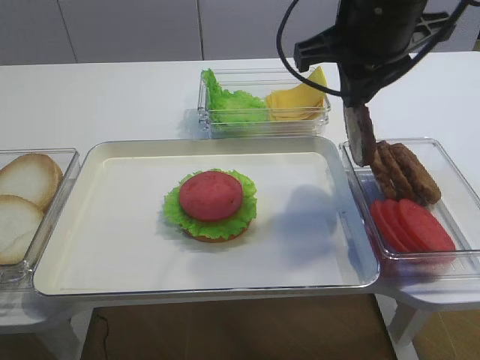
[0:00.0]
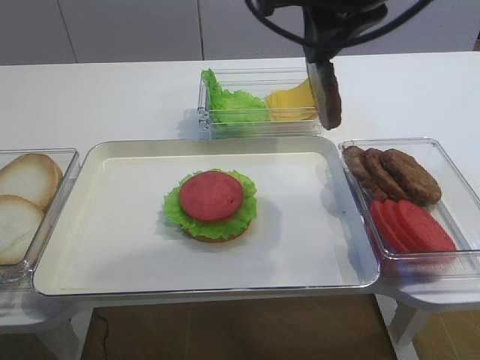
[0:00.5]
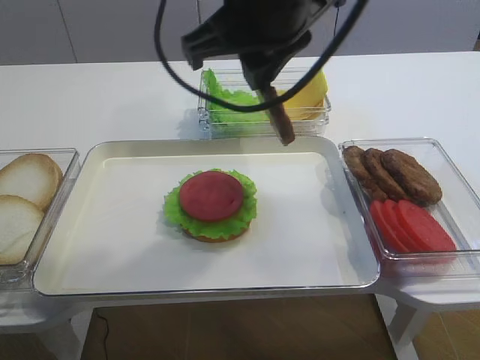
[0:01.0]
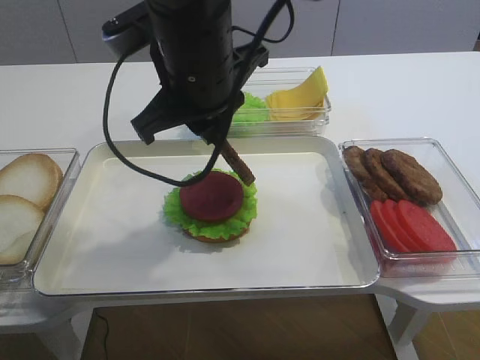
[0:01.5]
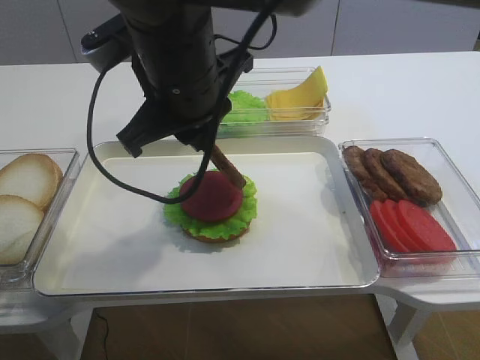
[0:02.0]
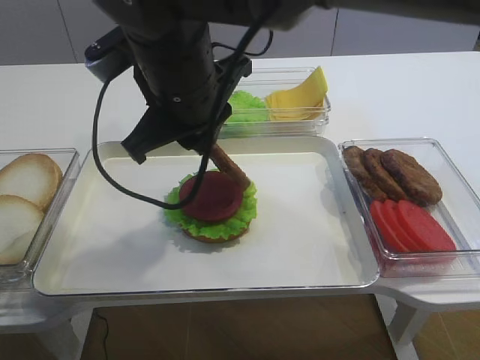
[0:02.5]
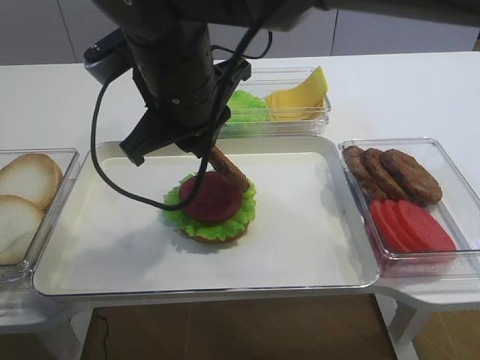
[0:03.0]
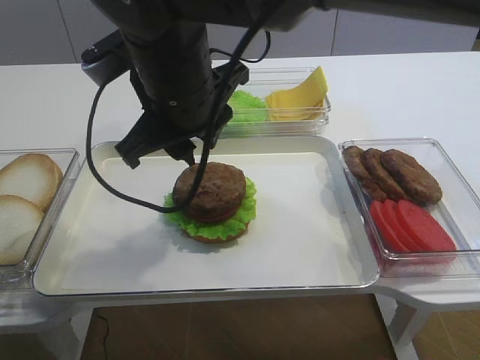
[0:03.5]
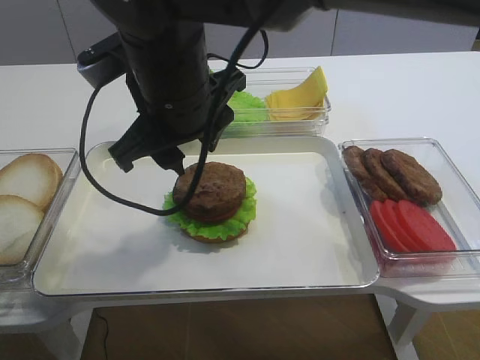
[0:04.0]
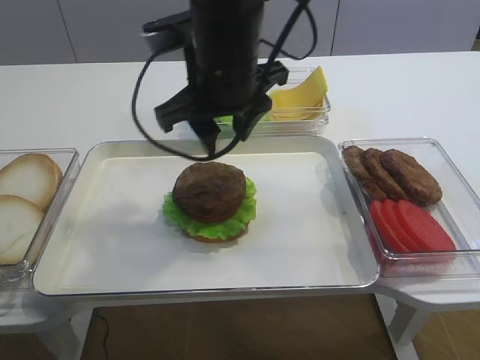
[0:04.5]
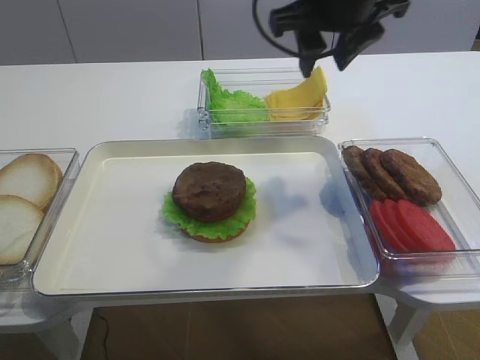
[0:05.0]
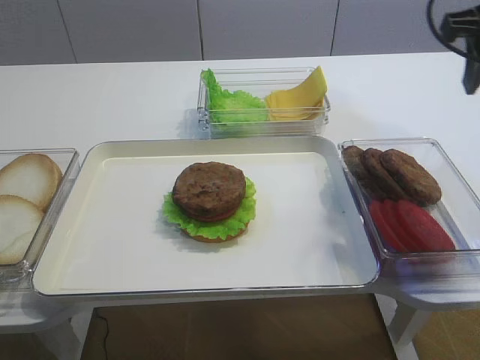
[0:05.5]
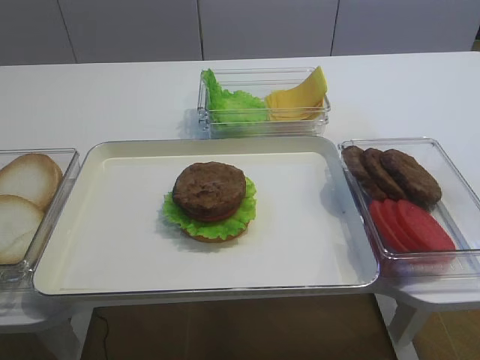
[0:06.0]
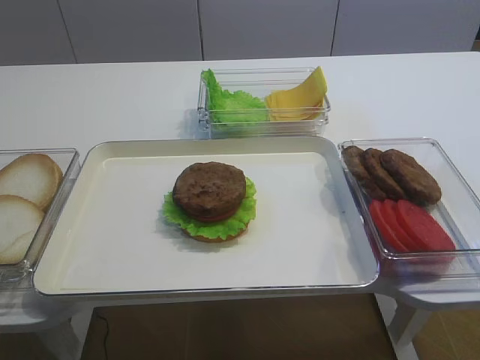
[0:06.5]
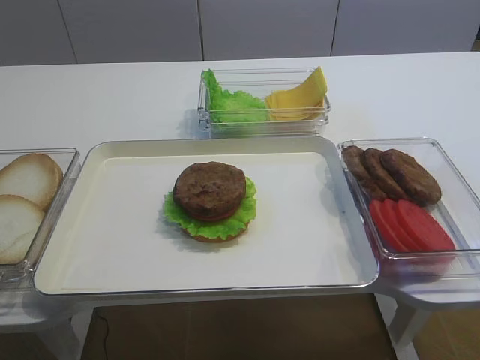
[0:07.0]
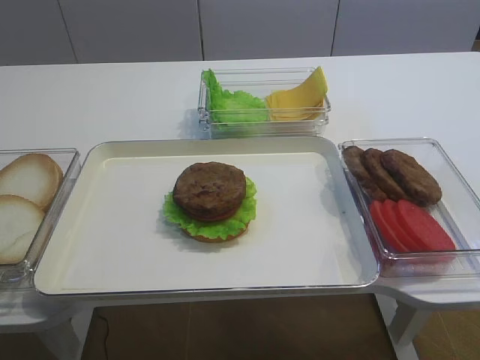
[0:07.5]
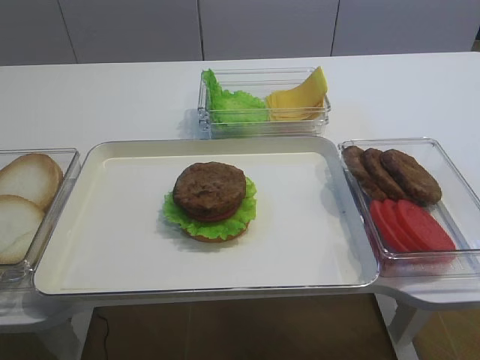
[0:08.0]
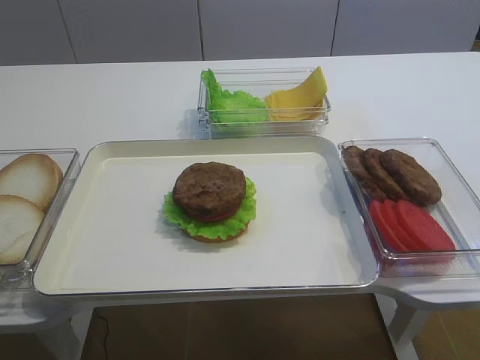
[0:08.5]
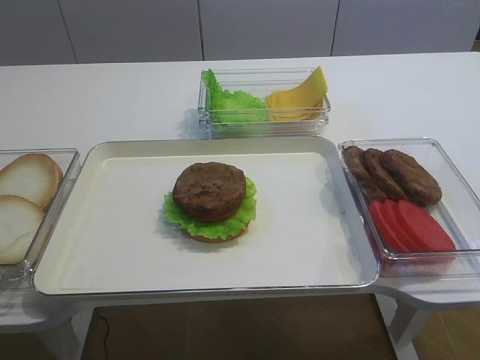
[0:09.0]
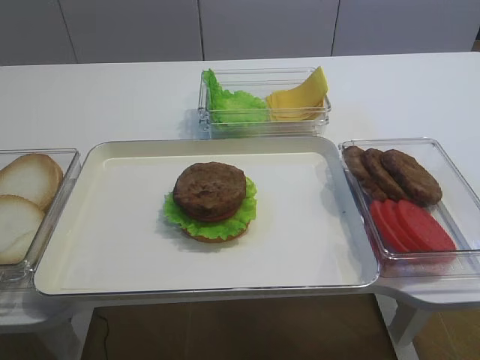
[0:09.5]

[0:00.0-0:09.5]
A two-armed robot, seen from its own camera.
Step, 0:00.5 to 0:03.0: Place the cutlet on the tomato slice with the right gripper.
0:00.0 to 0:02.0: The right gripper is displaced to the left by about 15 cm.
0:02.0 to 0:04.0: The right gripper opens its fingers.
0:04.0 to 0:05.5: The right gripper is displaced to the right by about 30 cm.
0:05.5 to 0:07.5: The right gripper moves backward, some 30 cm.

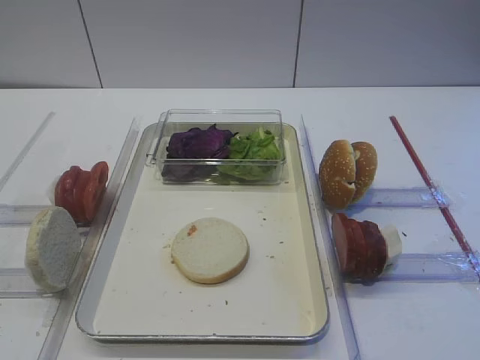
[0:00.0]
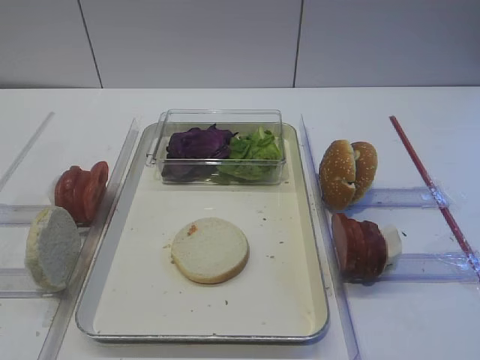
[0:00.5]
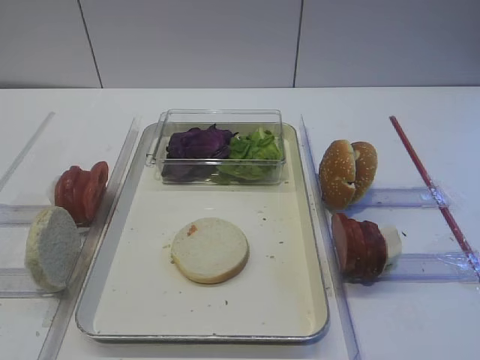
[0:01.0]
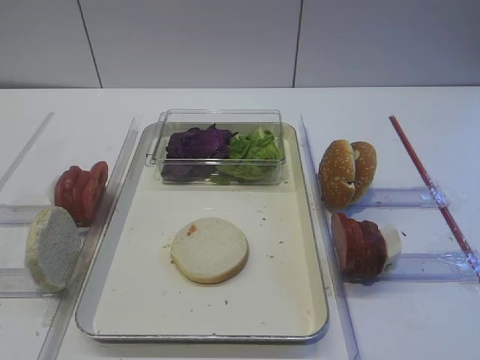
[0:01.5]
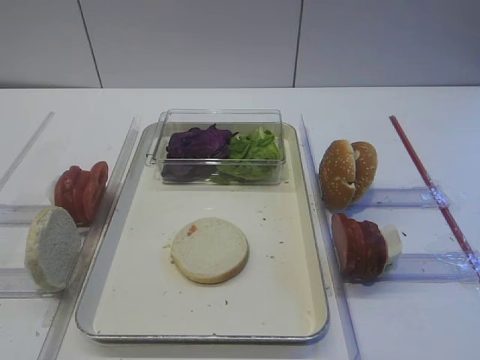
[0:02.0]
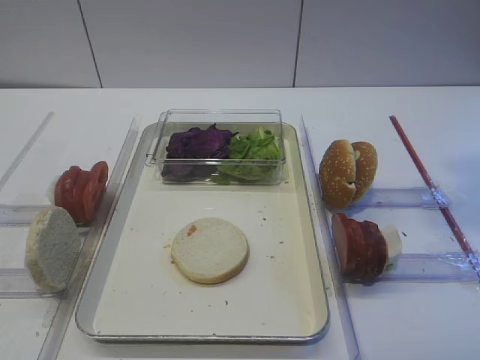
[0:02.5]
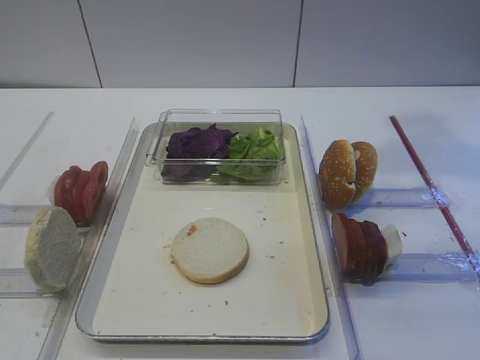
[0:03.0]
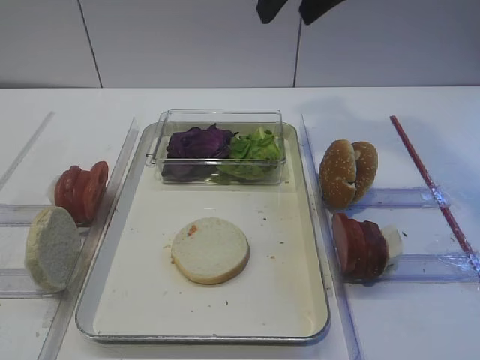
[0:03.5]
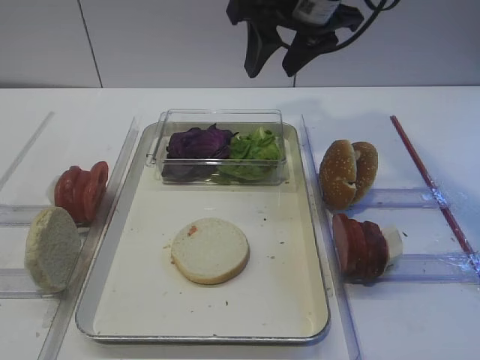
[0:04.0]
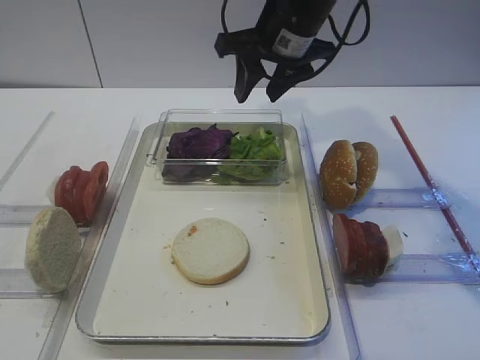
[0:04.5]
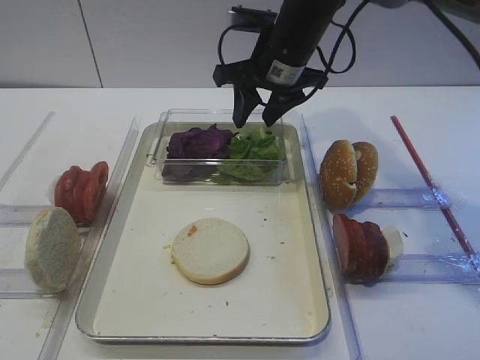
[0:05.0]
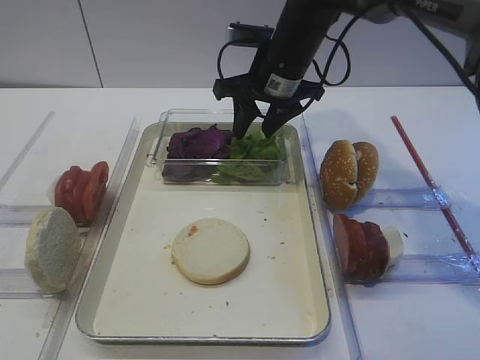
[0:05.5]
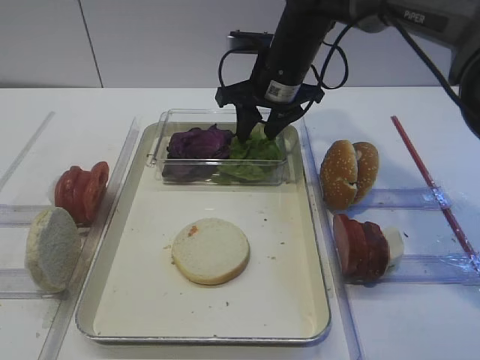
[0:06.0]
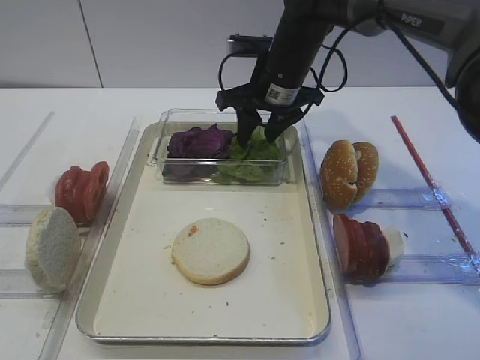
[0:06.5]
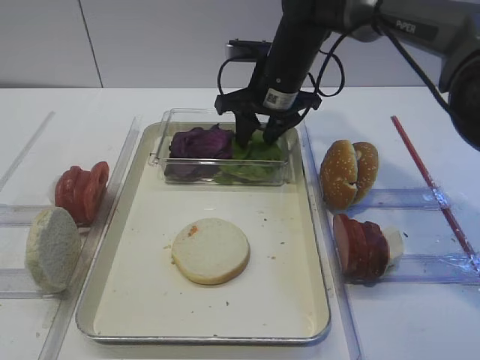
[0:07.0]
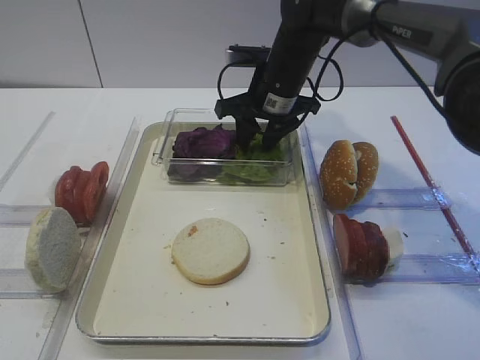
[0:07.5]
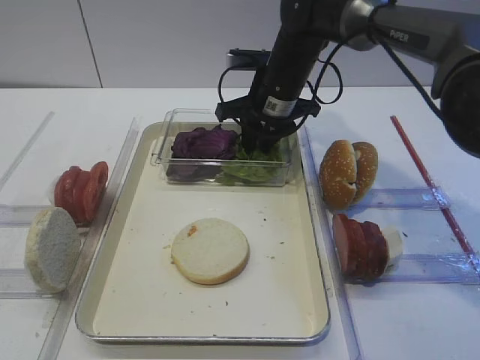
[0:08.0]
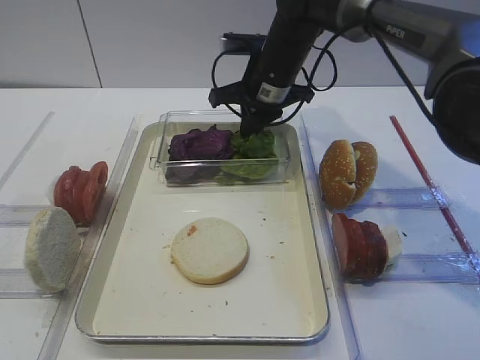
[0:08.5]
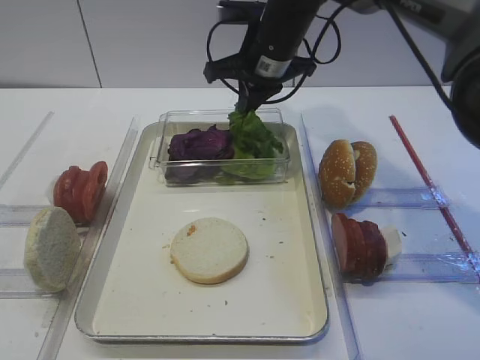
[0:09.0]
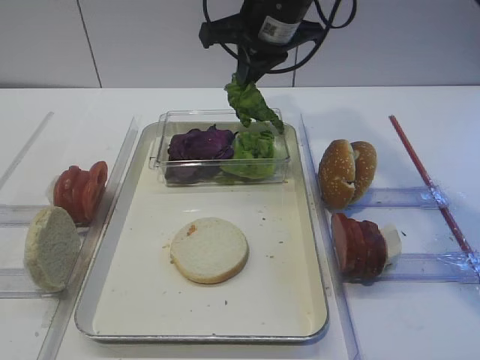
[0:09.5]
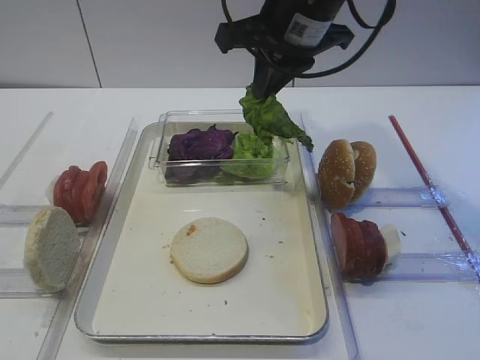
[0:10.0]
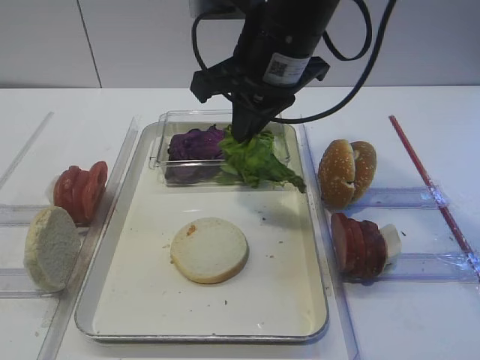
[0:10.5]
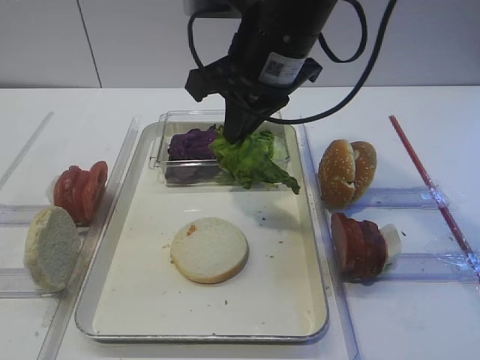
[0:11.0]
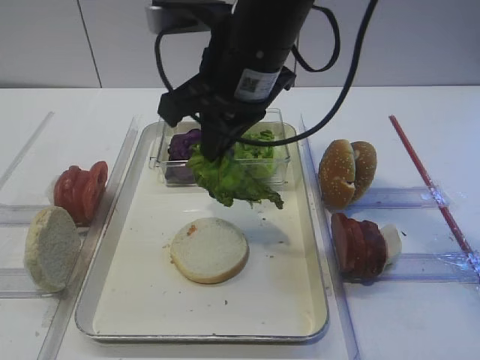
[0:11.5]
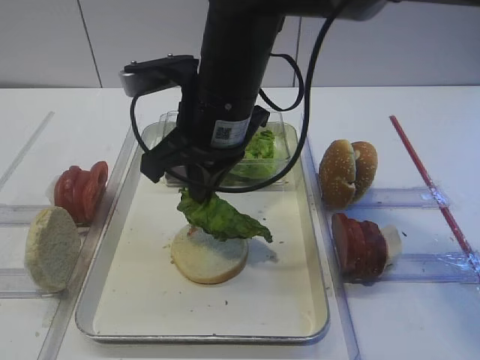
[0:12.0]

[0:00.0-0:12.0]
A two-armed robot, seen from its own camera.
Step, 0:00.0 to 0:09.0: Pick up the lettuce leaf with the right gripper.
0:02.0 to 0:04.0: The left gripper opens; the right gripper heads forward and to the left, covering roughly 35 cm.
0:04.0 to 0:06.0: The right gripper is displaced downward and forward by roughly 15 cm.
0:06.0 to 0:08.0: The grippers move only a little.
0:08.0 to 0:10.0: The right gripper shifts some 15 cm upward and backward, and closes up.
0:10.0 to 0:12.0: The right gripper goes about 10 cm to the left, downward and backward.

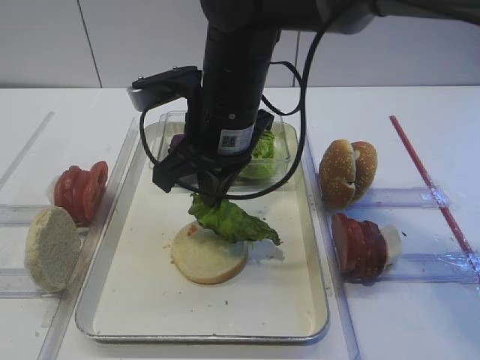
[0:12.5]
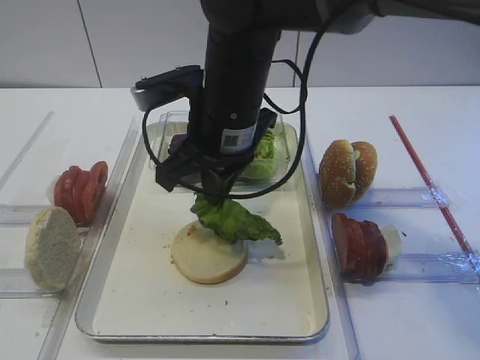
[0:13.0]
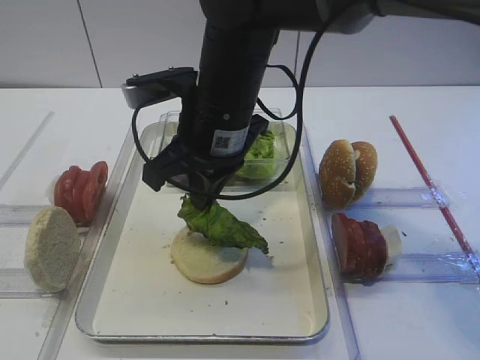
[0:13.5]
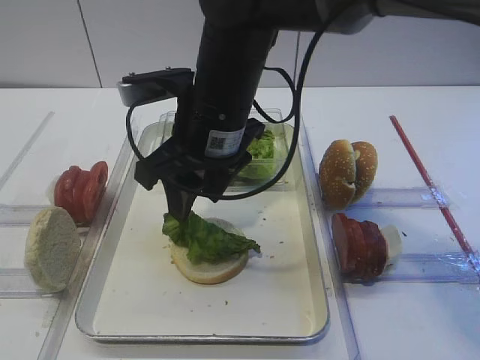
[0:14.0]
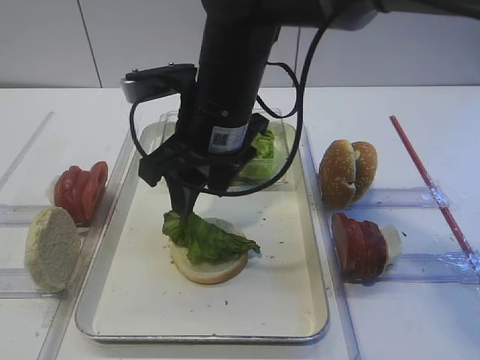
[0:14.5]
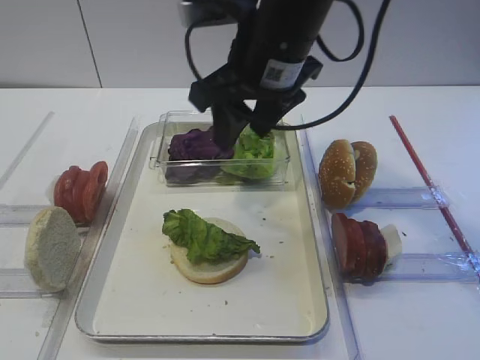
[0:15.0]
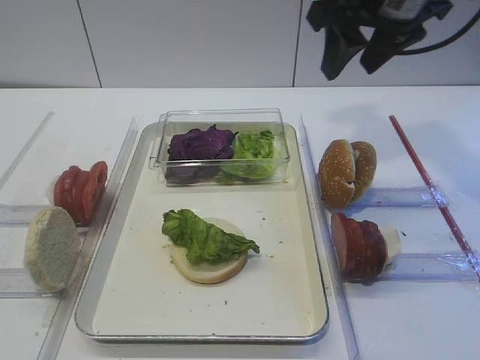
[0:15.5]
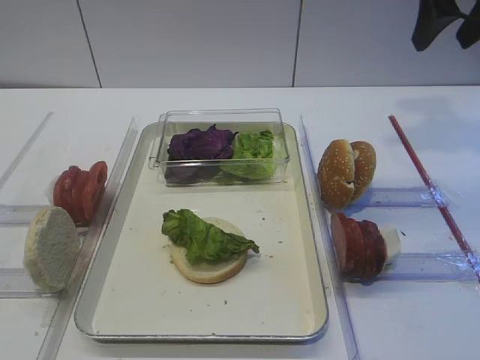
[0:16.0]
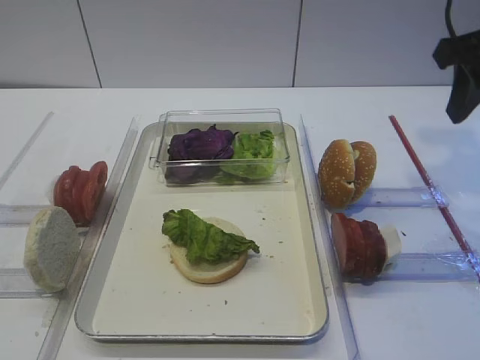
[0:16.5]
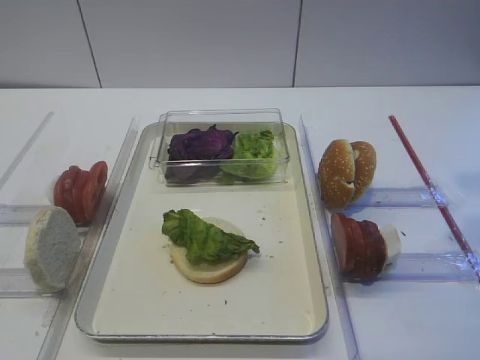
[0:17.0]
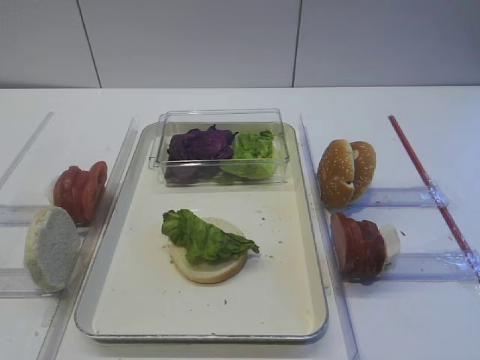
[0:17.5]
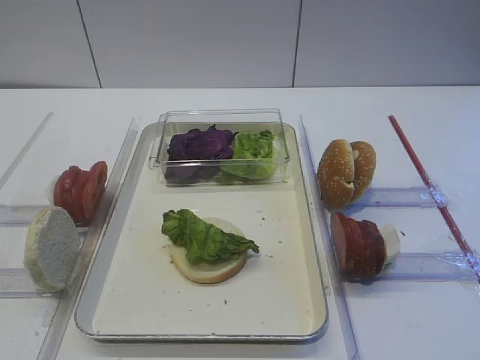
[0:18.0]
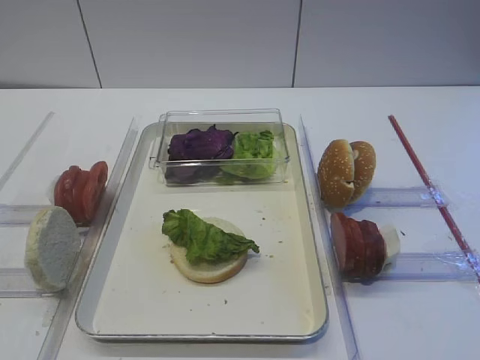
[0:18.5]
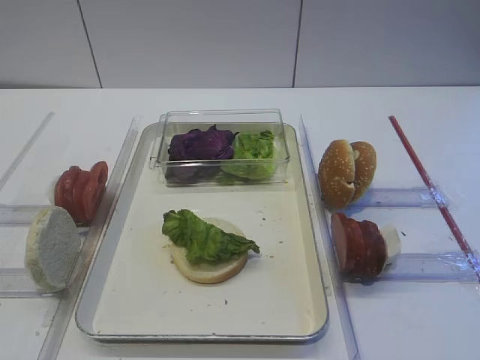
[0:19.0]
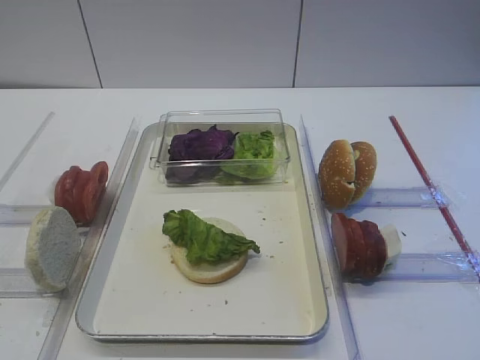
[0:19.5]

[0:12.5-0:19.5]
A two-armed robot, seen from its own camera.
Step, 0:12.5 to 0:15.5: Place the lettuce leaf on the bread slice with the right gripper.
0:12.5 to 0:14.5: The right gripper opens up.
0:14.5 to 0:16.0: The right gripper shifts approximately 30 cm to the right and upward.
0:16.0 to 0:17.5: The right gripper goes approximately 25 cm backward.
